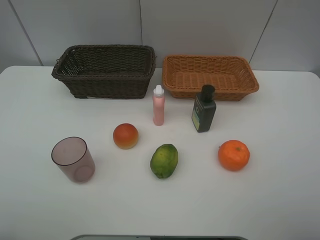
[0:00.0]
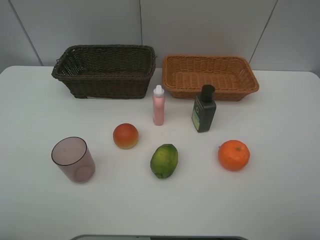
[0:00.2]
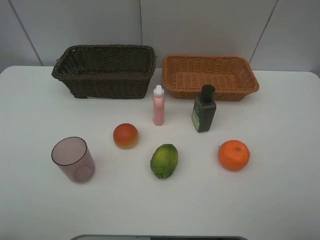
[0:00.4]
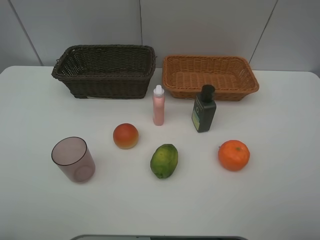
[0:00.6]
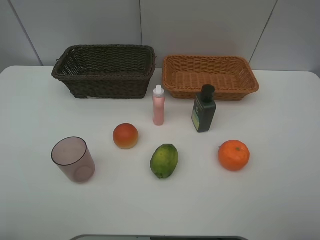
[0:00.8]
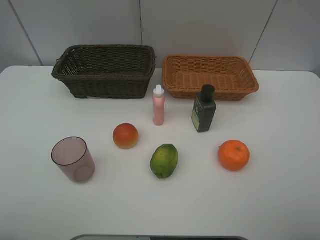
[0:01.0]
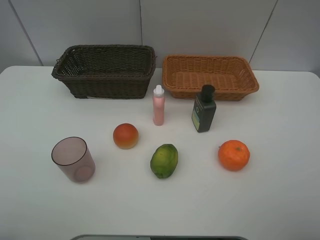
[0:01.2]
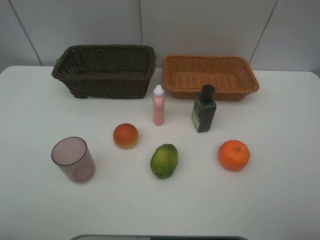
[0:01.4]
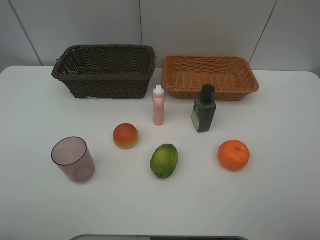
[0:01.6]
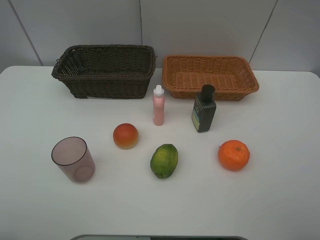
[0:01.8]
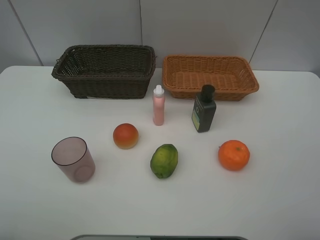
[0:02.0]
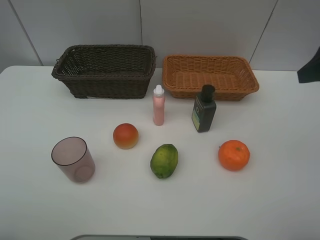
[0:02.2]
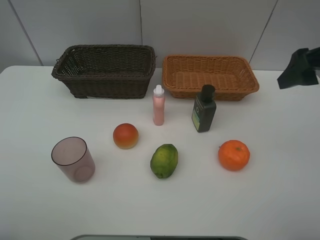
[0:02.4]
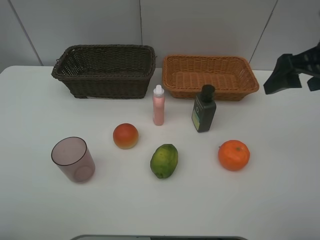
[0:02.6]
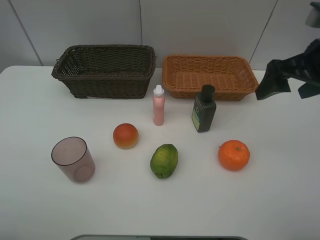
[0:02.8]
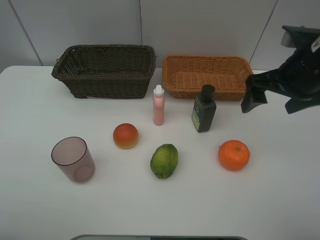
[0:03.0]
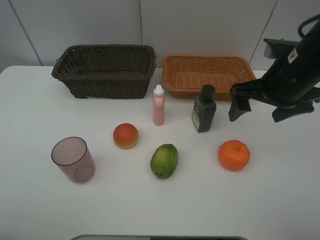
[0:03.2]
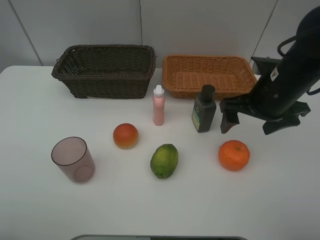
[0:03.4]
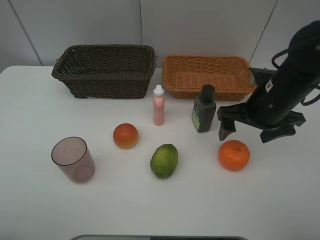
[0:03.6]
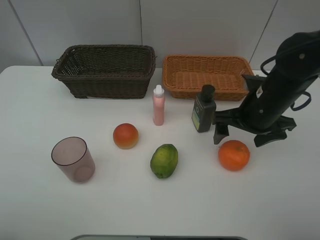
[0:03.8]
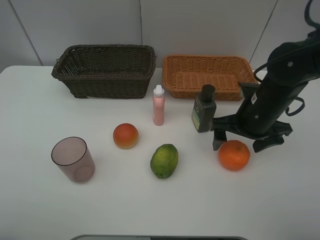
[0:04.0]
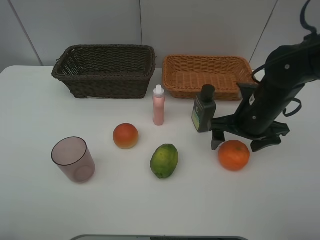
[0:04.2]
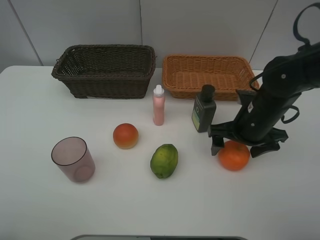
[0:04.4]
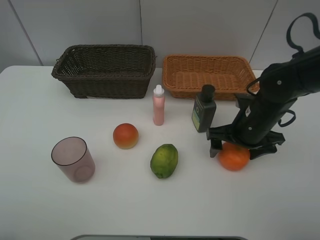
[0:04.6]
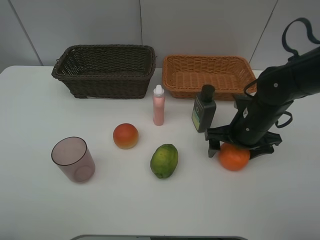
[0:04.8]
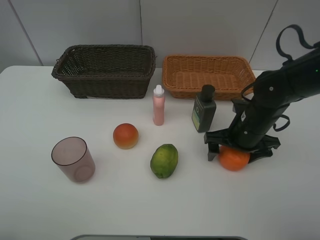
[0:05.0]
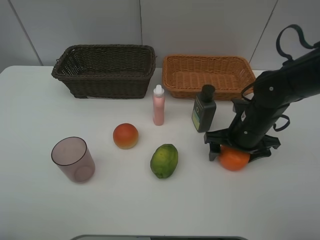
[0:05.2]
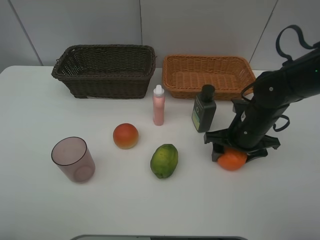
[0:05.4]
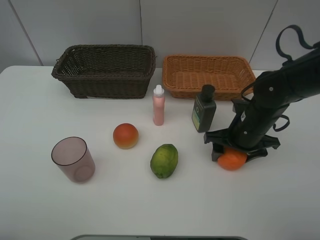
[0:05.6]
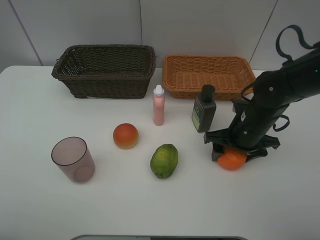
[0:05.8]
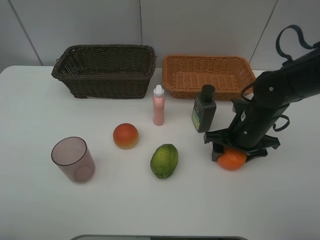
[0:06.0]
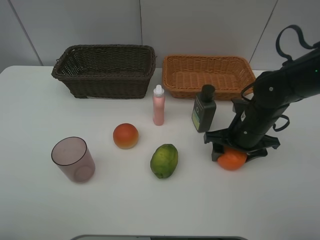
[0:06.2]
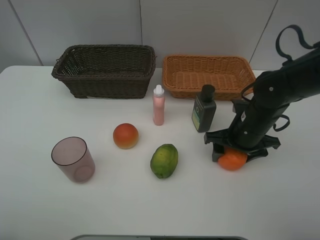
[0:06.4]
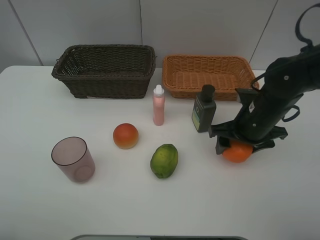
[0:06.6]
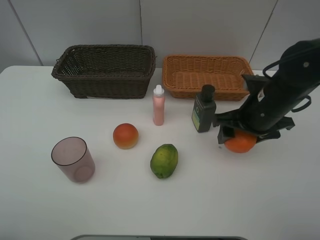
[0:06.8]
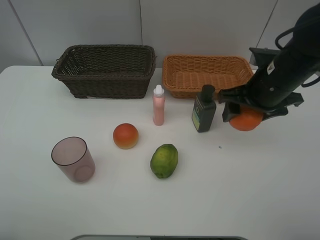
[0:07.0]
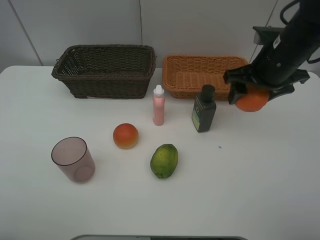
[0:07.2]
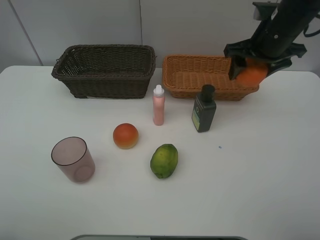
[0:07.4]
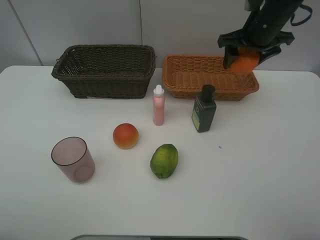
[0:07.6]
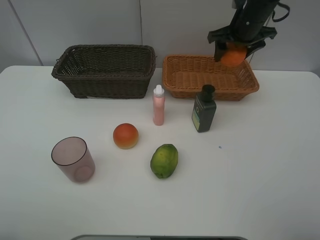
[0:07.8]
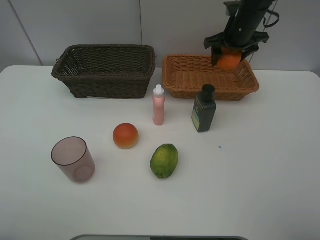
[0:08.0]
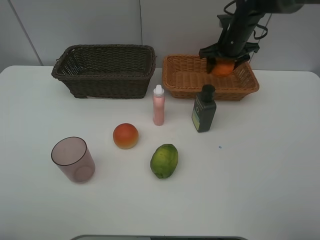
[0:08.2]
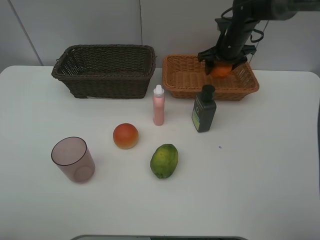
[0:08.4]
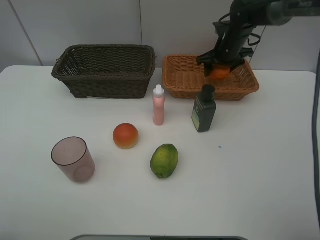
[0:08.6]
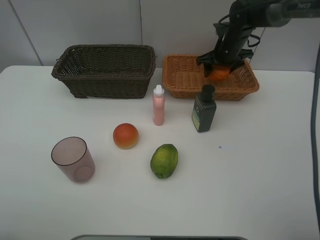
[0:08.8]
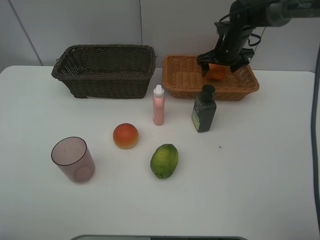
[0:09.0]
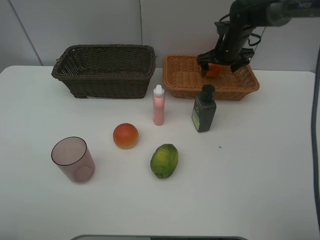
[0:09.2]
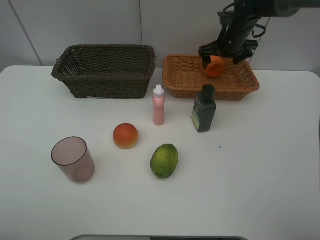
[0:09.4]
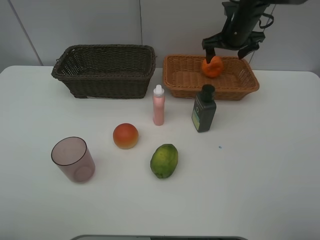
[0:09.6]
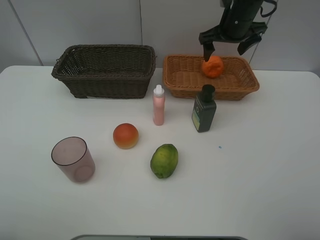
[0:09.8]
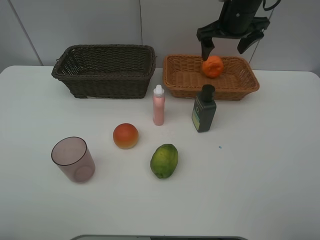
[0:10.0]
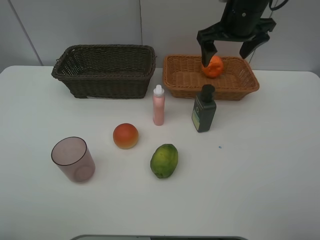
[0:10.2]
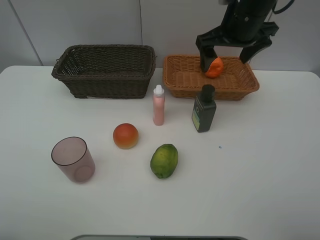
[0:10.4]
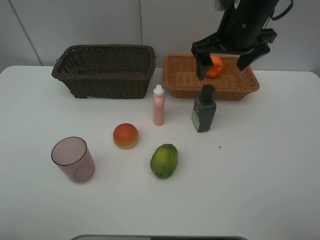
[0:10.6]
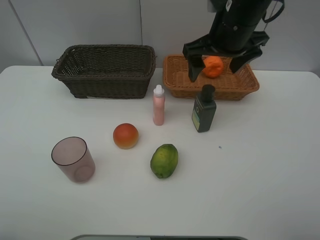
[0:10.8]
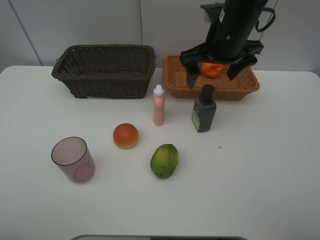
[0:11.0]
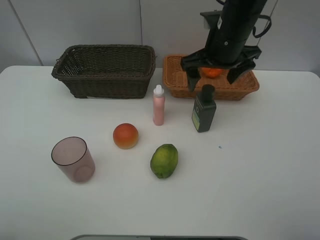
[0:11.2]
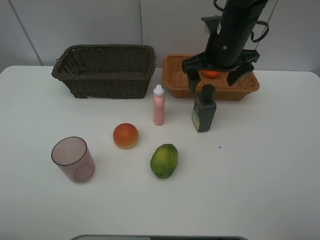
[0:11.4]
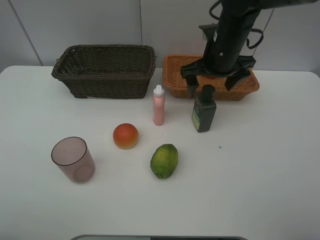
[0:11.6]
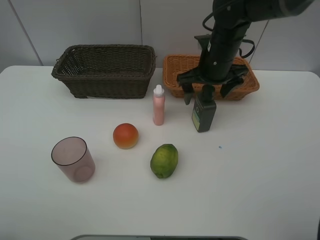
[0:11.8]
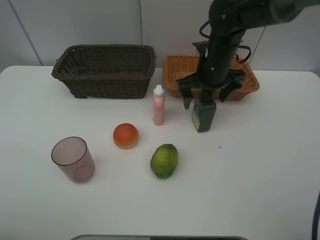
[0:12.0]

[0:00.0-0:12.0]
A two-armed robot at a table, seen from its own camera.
Task of the whole recording: place multiple objects separately in different baskets.
0:00.0 to 0:01.6: Neither gripper changes place.
0:01.6 to 0:03.0: The right gripper heads forward, covering some 25 cm.
0:03.0 to 0:04.4: The right gripper travels downward by some 10 cm.
0:04.4 to 0:06.0: The grippers move only a little.
0:06.0 to 0:07.6: The right gripper heads upward and forward, covering some 20 cm.
0:07.6 to 0:09.0: The right gripper goes roughly 15 cm downward and forward, and opens.
0:09.0 to 0:10.4: The right gripper travels backward and upward by roughly 20 cm.
0:10.4 to 0:12.0: The right gripper is displaced downward by approximately 10 cm.

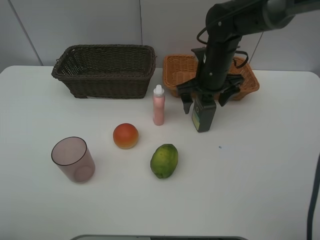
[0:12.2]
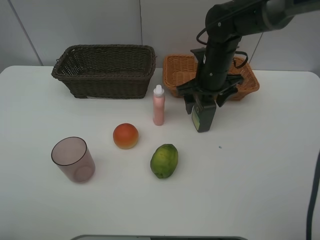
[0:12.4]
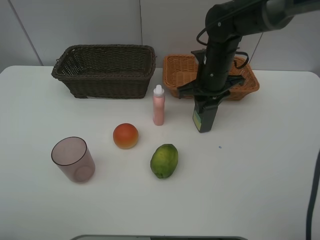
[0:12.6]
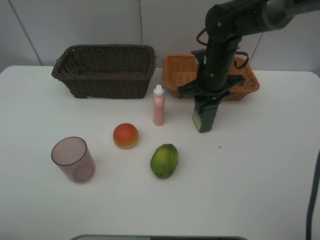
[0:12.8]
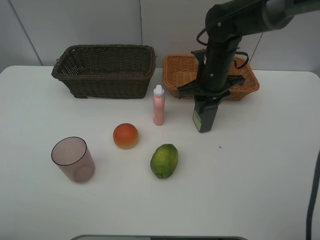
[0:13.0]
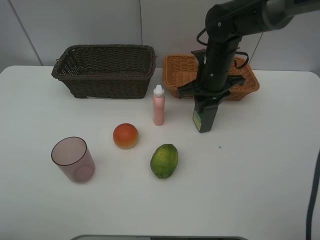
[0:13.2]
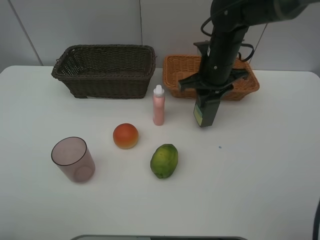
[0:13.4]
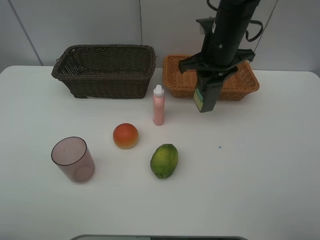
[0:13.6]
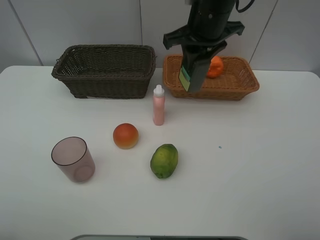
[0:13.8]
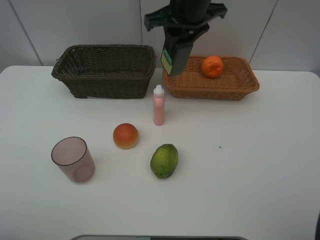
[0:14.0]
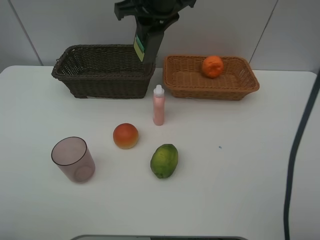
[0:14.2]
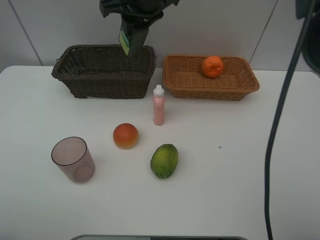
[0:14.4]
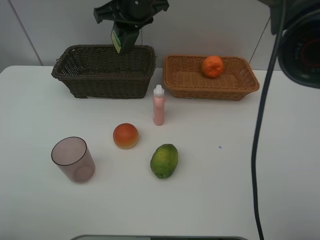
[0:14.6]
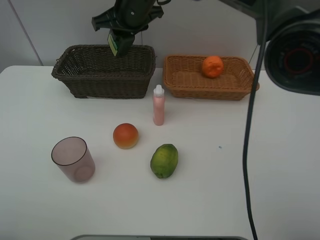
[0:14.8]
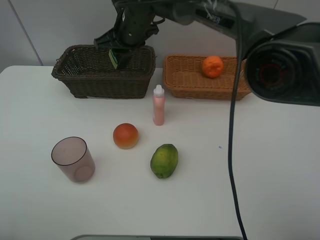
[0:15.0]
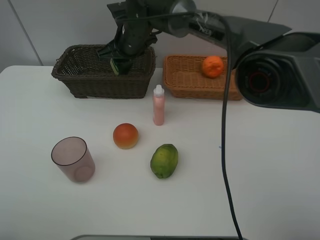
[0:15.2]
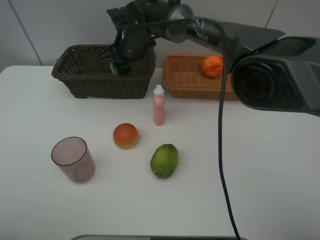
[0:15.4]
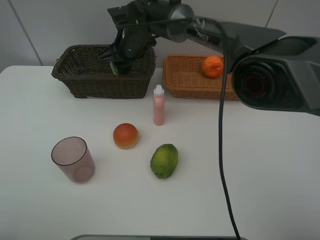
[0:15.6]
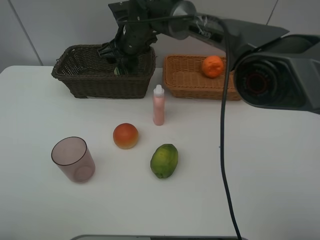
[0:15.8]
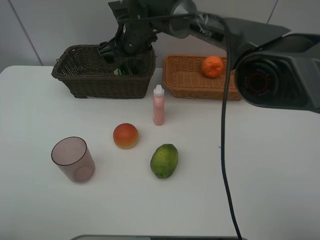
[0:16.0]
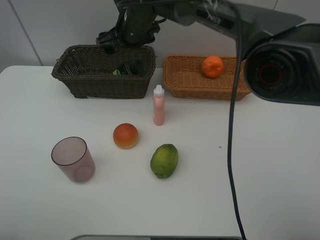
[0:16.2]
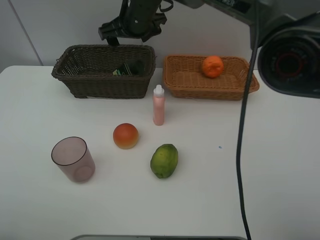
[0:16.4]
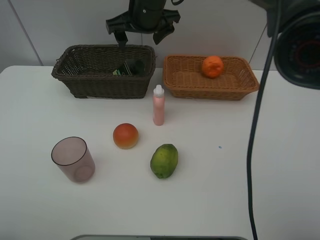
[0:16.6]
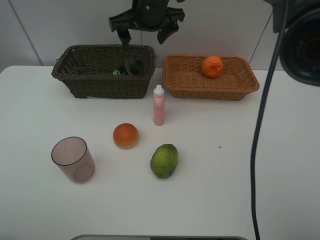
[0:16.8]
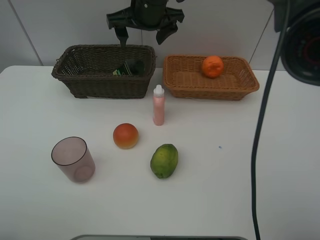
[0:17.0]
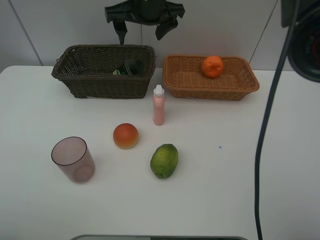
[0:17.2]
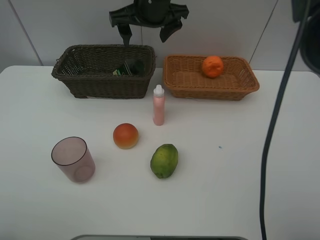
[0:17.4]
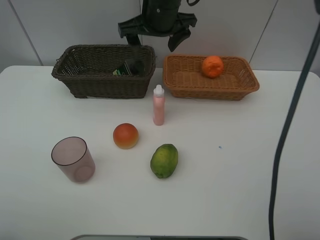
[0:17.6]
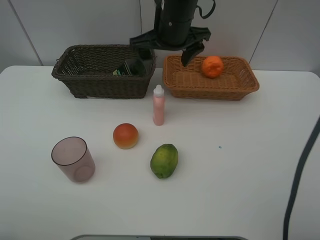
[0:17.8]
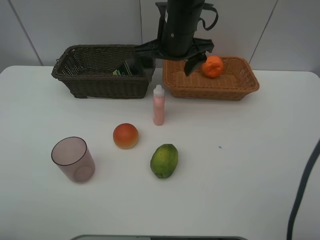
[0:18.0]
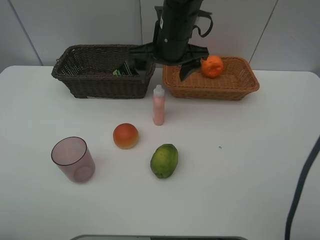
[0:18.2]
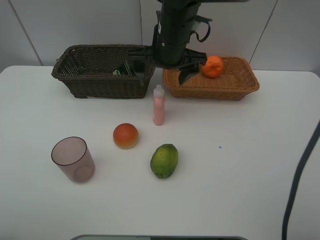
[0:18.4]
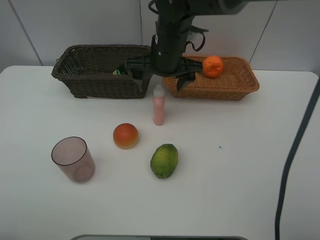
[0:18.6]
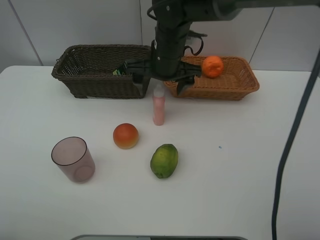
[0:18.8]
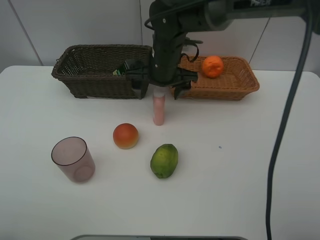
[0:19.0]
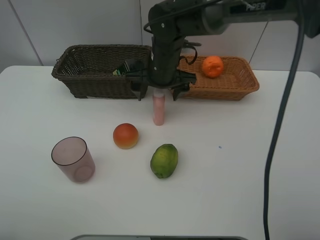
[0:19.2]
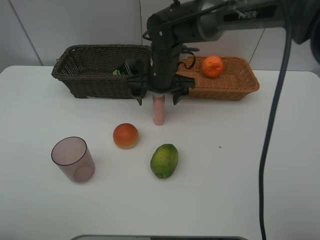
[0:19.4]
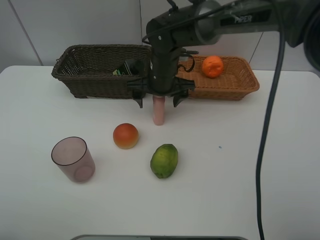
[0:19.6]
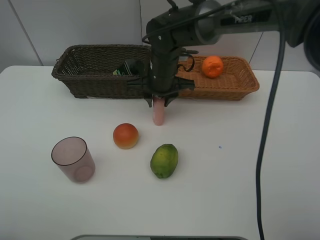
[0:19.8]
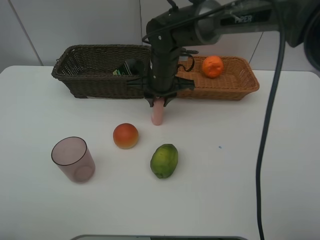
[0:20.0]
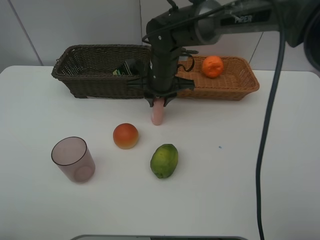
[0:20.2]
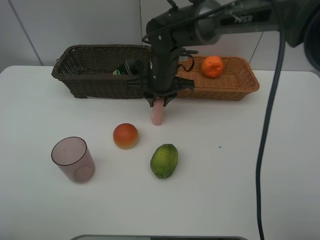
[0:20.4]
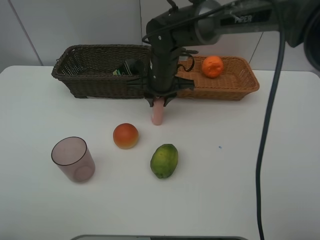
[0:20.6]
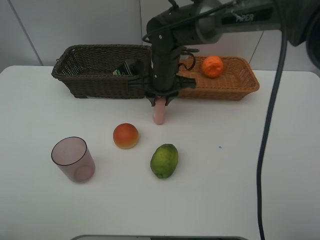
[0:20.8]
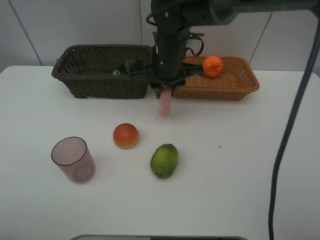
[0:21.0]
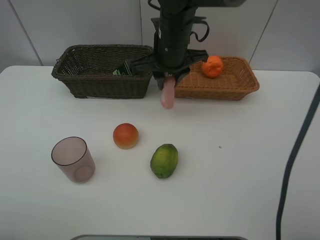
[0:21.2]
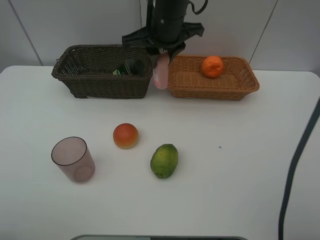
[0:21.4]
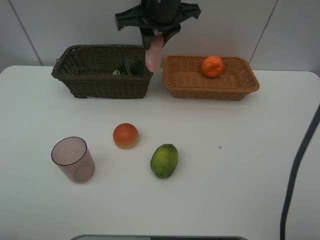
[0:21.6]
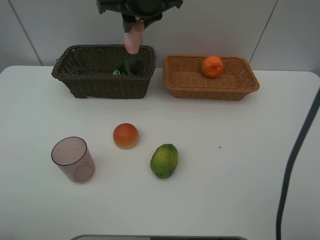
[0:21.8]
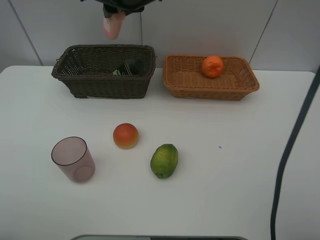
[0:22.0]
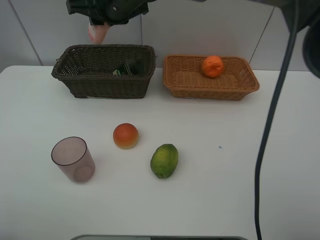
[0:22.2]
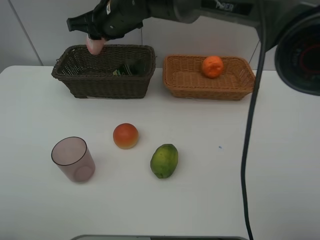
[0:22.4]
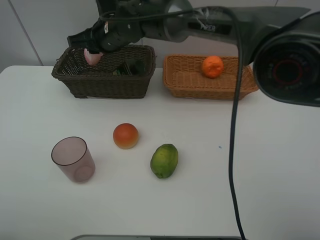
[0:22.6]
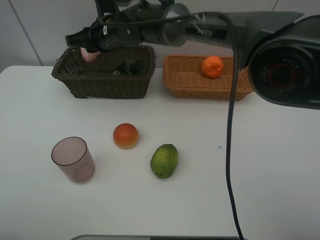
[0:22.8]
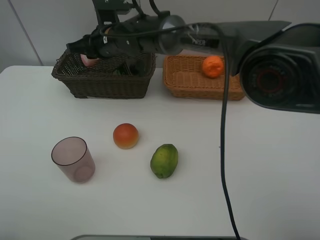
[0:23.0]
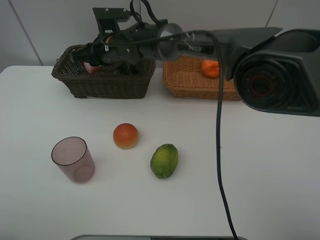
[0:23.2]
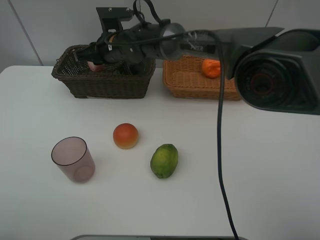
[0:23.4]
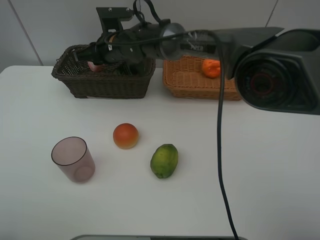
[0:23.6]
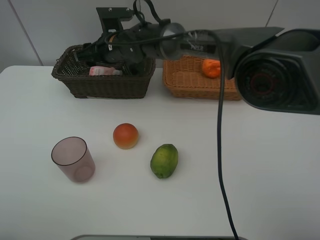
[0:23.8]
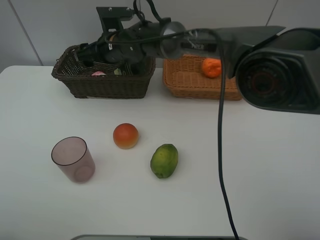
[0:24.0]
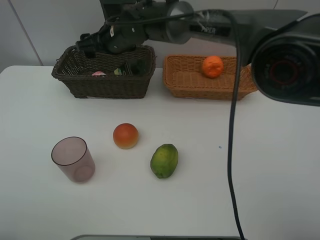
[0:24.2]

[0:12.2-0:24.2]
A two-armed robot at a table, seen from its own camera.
Task of the whole recording: place multiple objects separately in different baskets.
0:12.2 to 0:13.8: The right gripper goes some 10 cm upward, and closes.
0:13.8 to 0:15.2: The right gripper is displaced to the left, downward and forward by some 20 cm.
0:15.2 to 0:16.6: The right gripper moves upward, roughly 10 cm, and opens up.
0:16.6 to 0:18.2: The right gripper shifts some 5 cm backward.
0:18.2 to 0:19.8: The right gripper travels downward by some 10 cm, and closes its fingers.
0:19.8 to 0:21.2: The right gripper goes about 10 cm upward.
0:21.2 to 0:22.6: The right gripper is displaced to the left and forward by approximately 15 cm.
0:22.6 to 0:24.2: The right gripper opens up.
